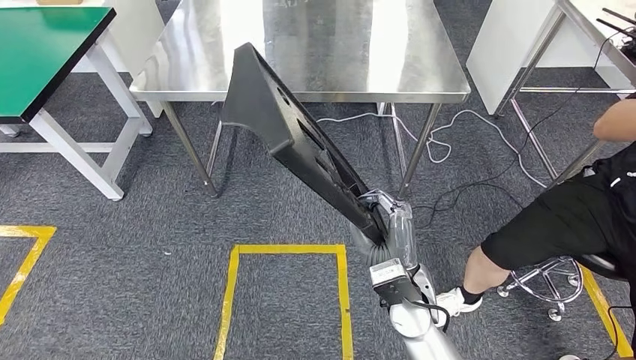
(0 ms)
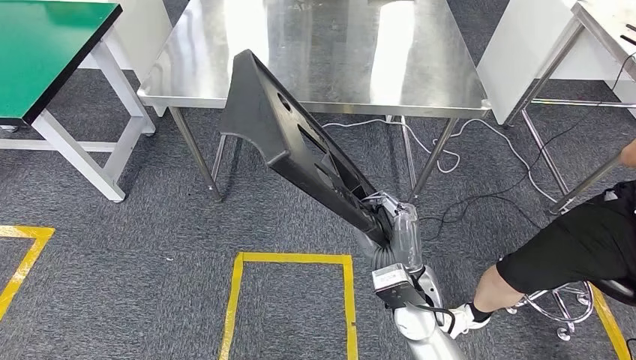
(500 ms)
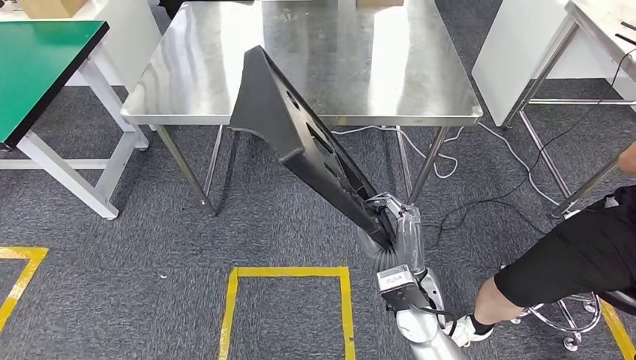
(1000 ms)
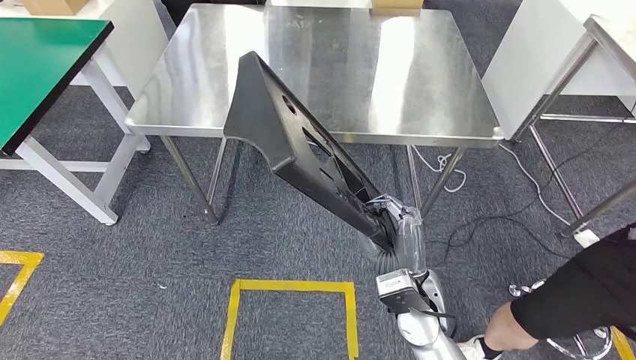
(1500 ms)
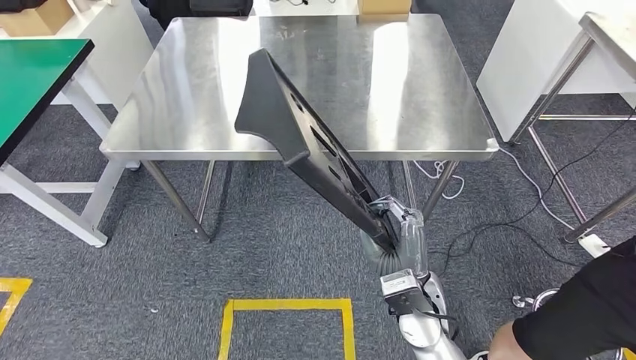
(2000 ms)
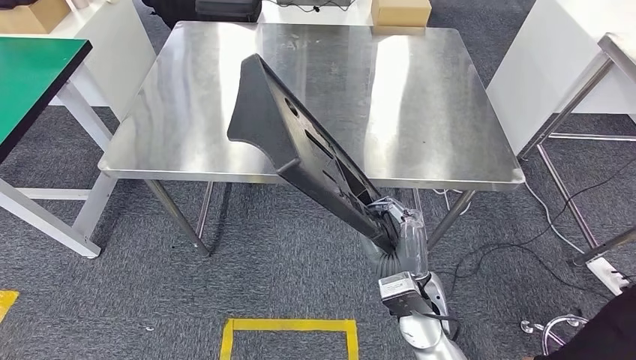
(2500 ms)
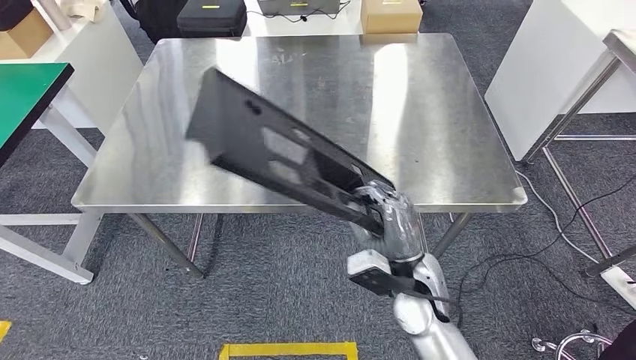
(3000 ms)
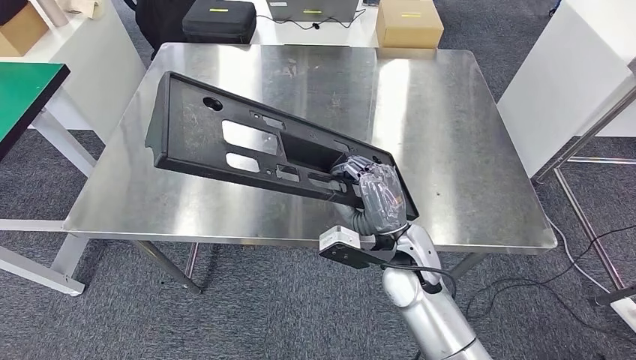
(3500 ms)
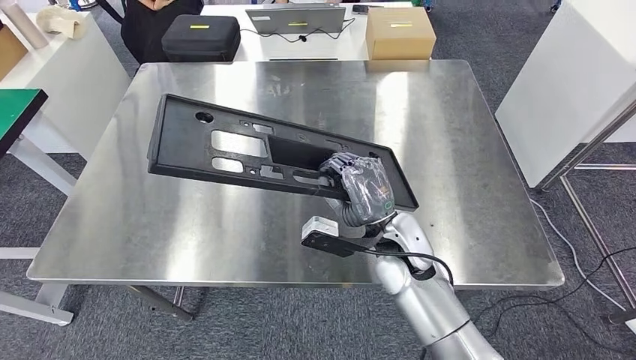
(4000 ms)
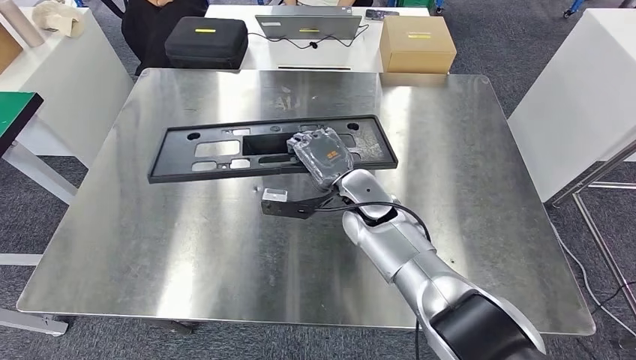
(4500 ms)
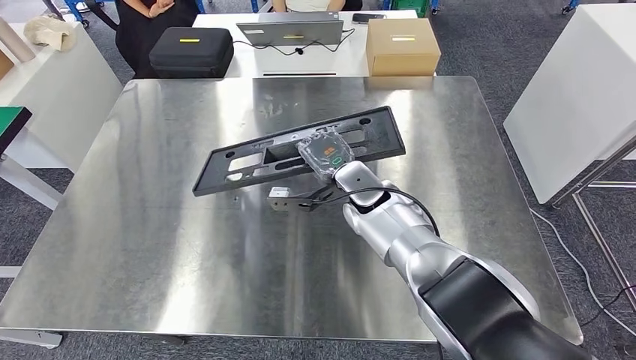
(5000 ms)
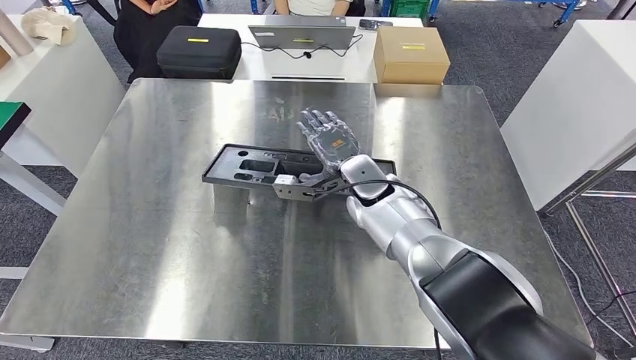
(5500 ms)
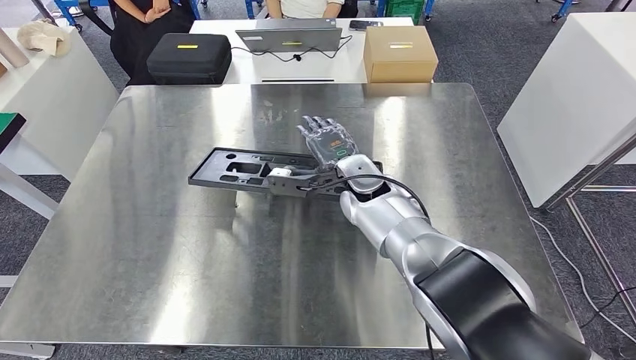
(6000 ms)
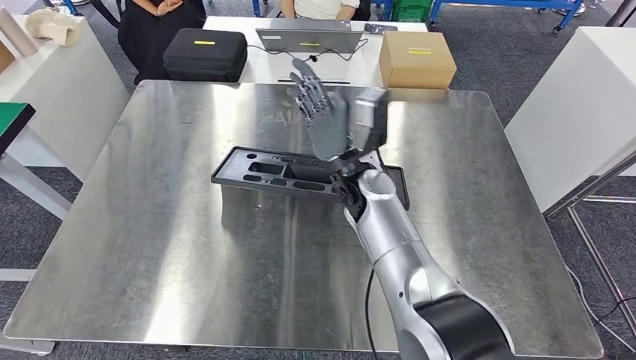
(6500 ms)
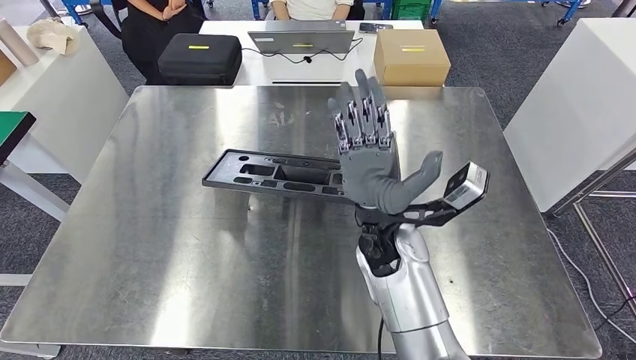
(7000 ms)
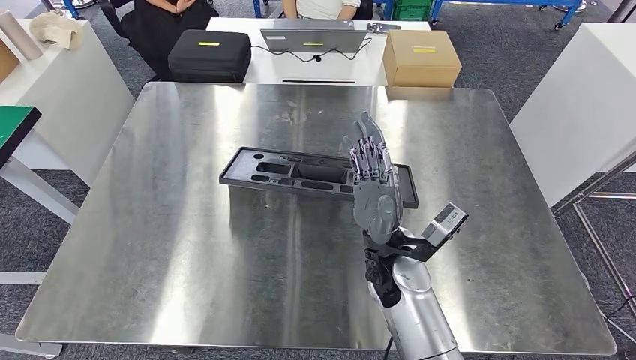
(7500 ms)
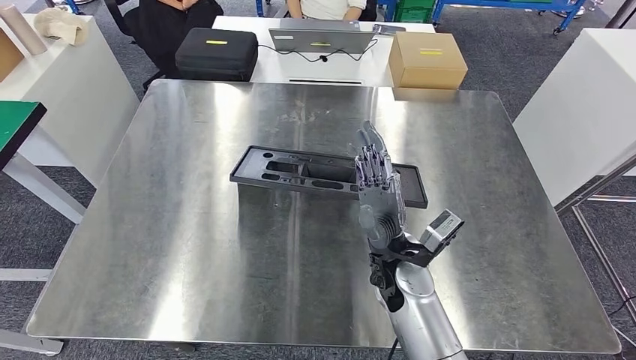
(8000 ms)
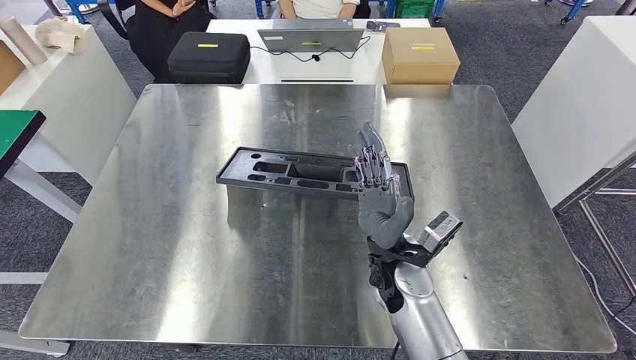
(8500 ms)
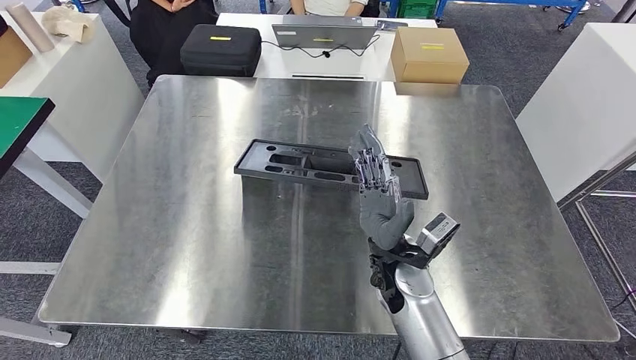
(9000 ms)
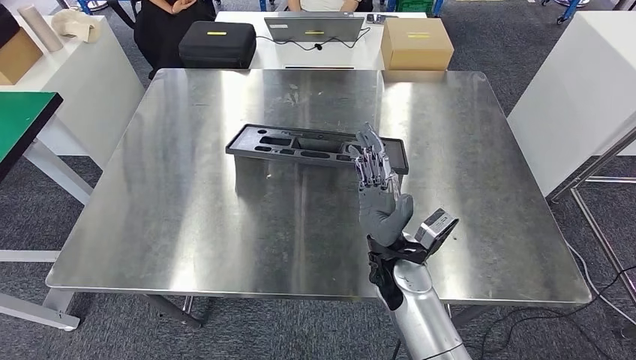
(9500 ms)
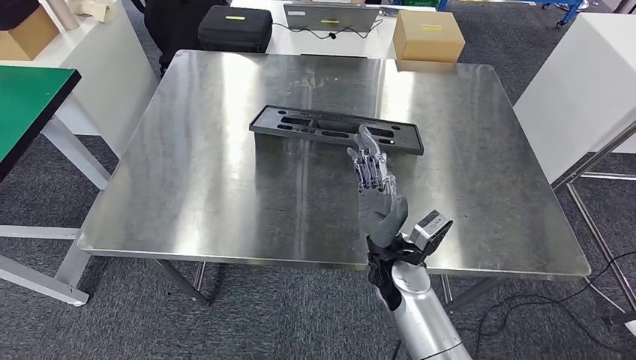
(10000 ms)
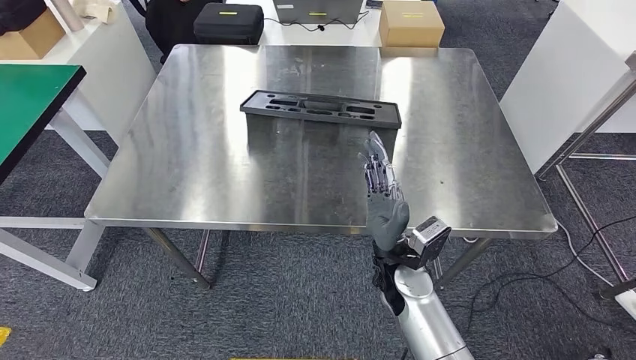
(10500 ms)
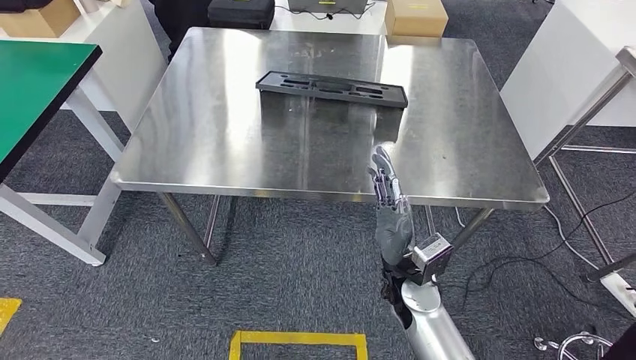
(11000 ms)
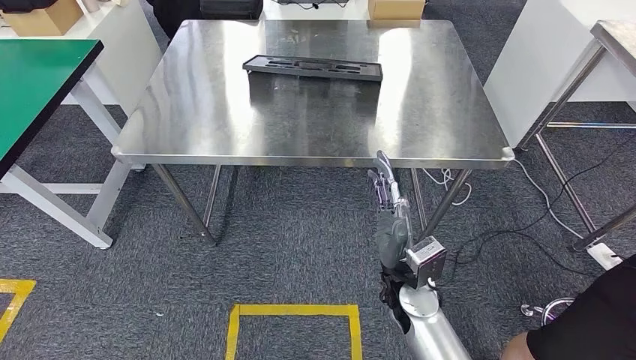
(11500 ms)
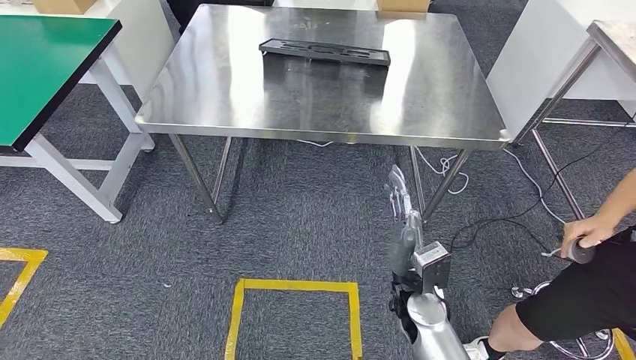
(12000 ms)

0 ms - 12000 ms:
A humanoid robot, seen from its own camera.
Step, 0 ms - 7500 ms: Insert the large material into the corresponding slot on the workbench.

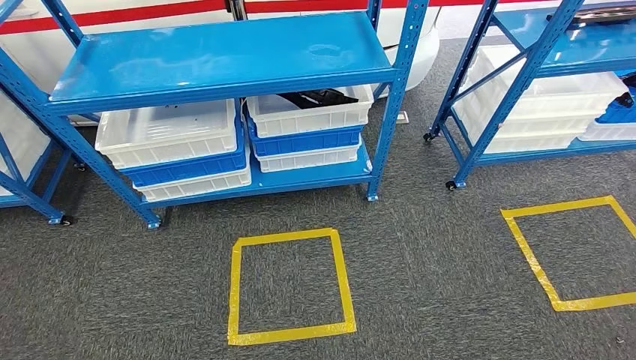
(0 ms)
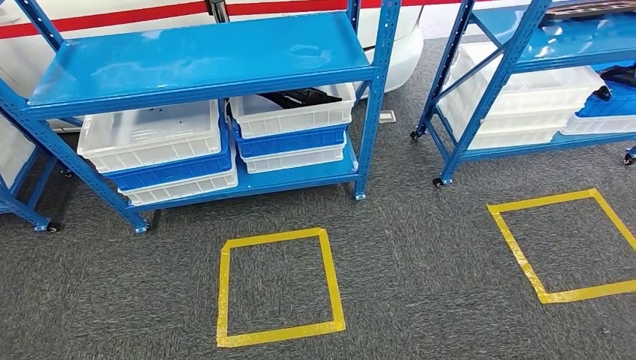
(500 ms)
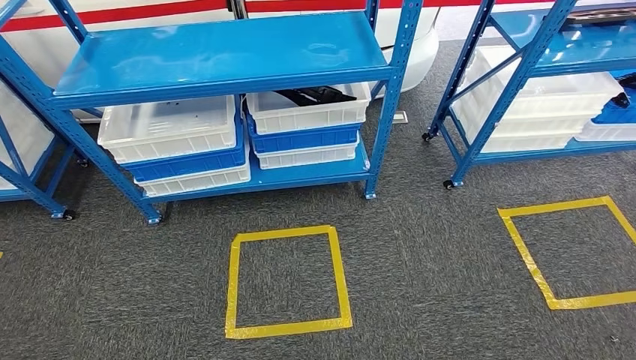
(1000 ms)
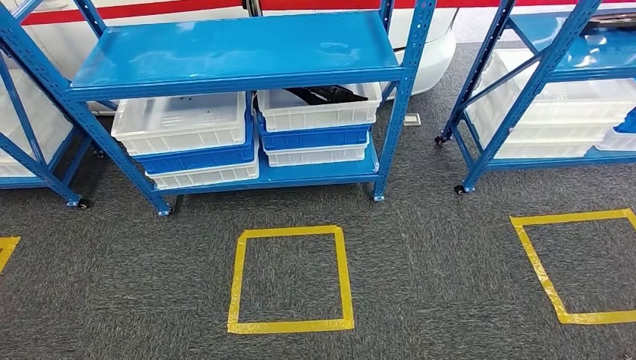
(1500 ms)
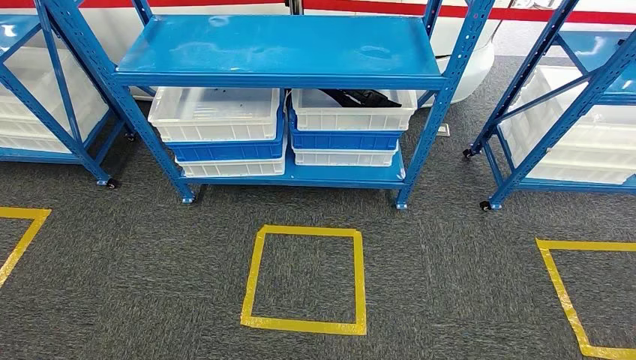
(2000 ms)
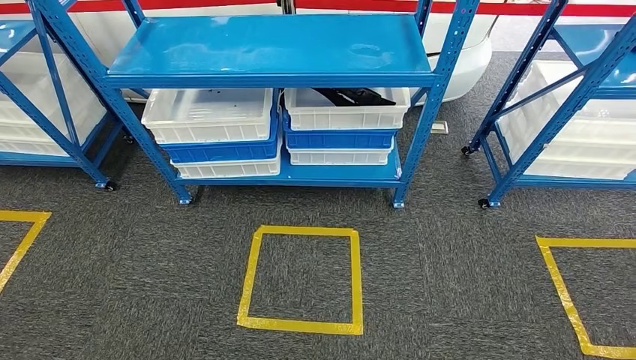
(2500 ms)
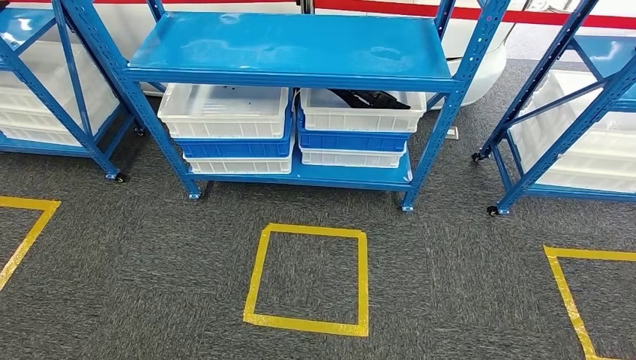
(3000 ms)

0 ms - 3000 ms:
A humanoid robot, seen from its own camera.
Step, 0 ms - 3000 ms: Move to the initial position of the shelf.

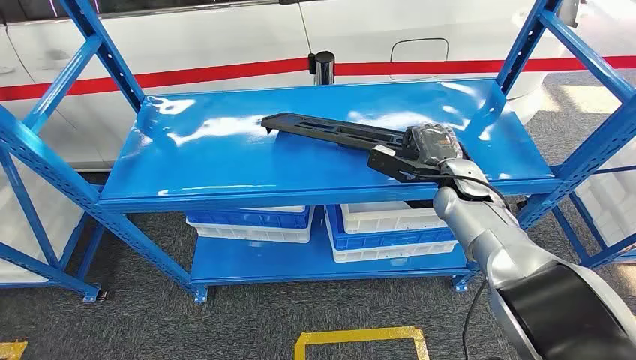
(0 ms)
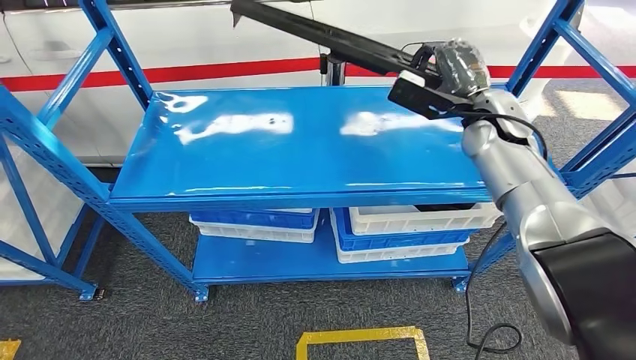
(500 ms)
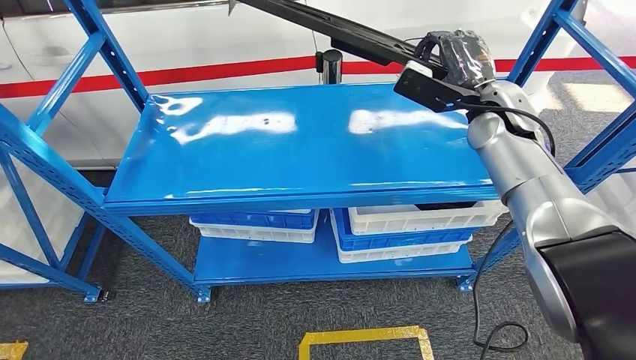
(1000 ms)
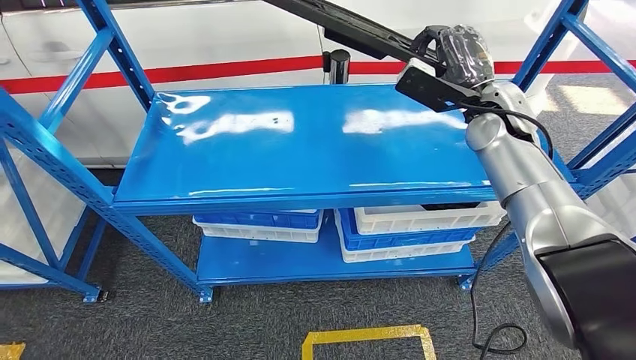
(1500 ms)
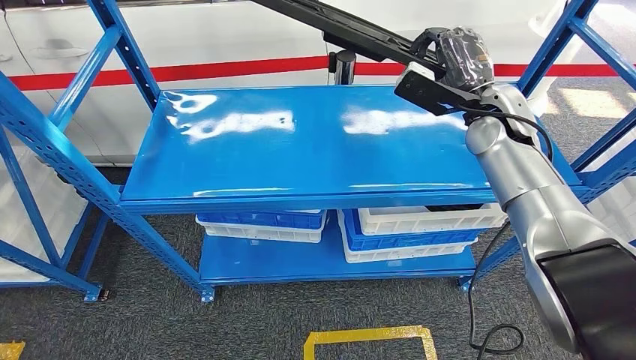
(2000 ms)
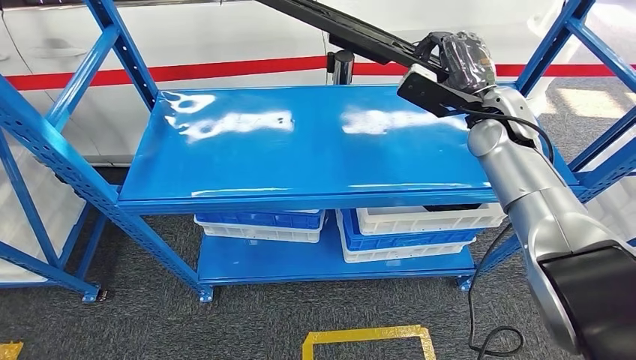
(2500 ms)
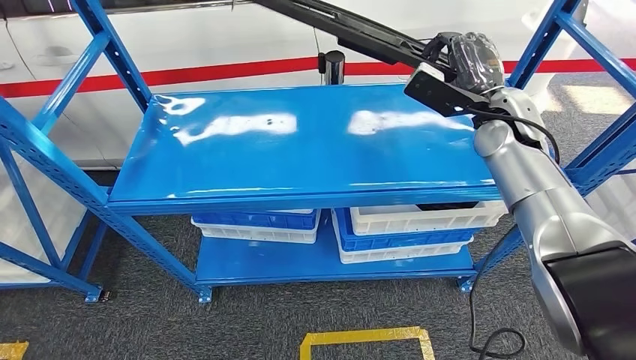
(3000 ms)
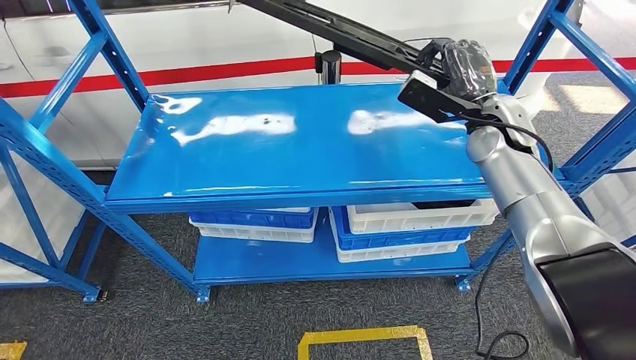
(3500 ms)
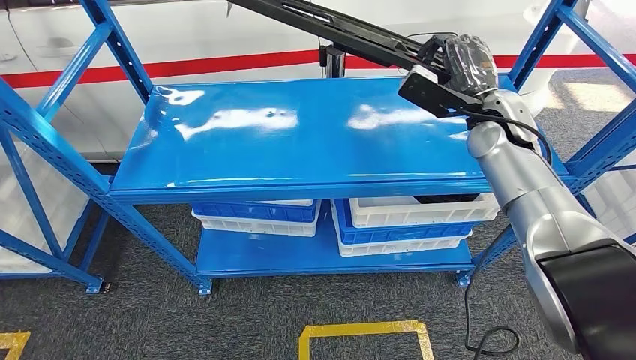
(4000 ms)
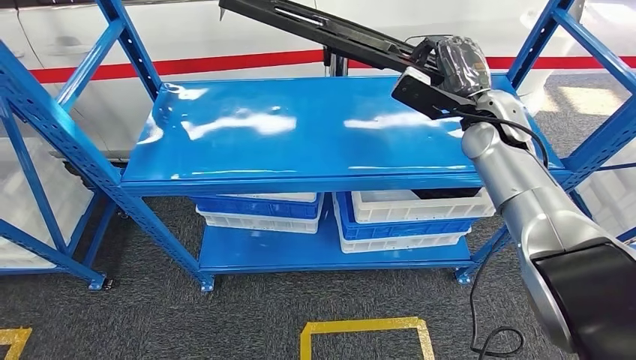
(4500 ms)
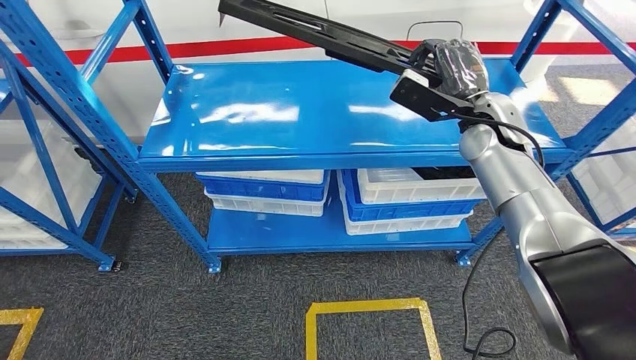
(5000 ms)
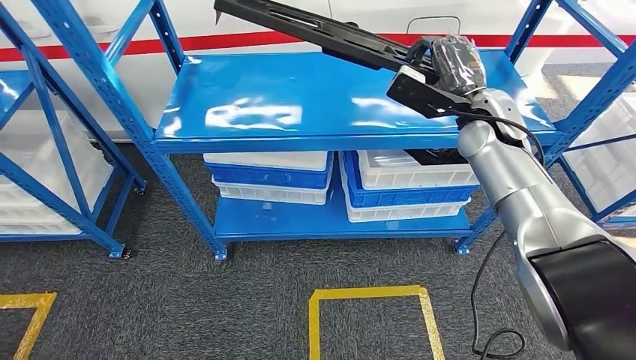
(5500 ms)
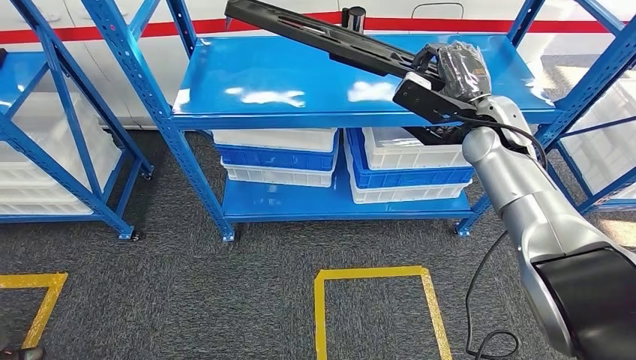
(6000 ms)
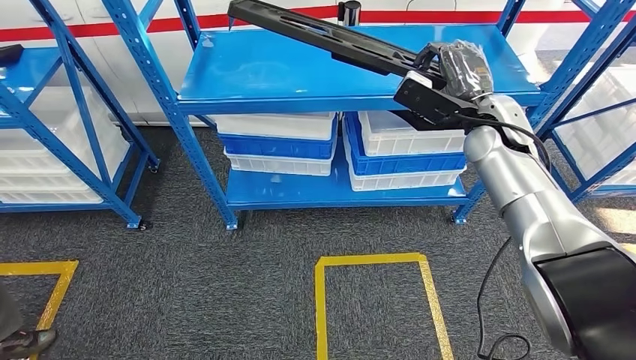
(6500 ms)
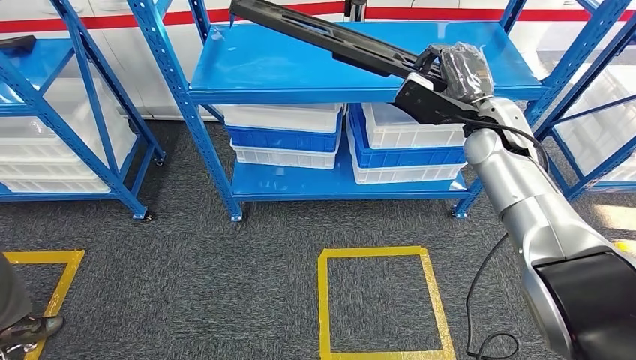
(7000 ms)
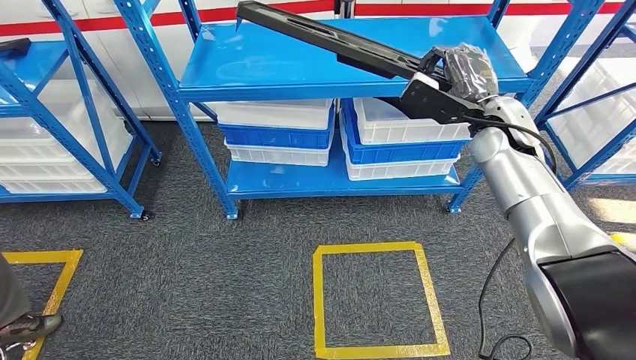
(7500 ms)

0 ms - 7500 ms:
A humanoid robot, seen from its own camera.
Step, 0 ms - 4500 ms: Pick up the large material from the shelf.
